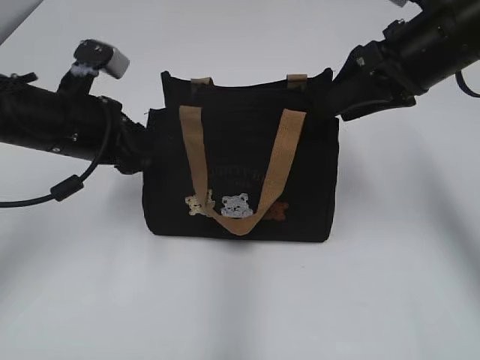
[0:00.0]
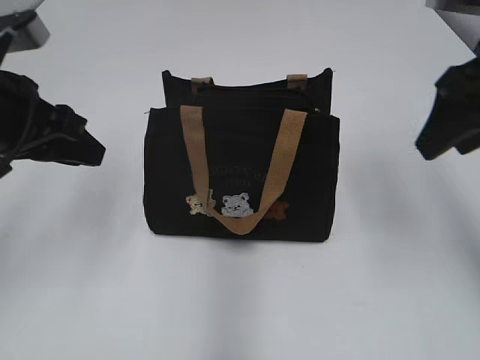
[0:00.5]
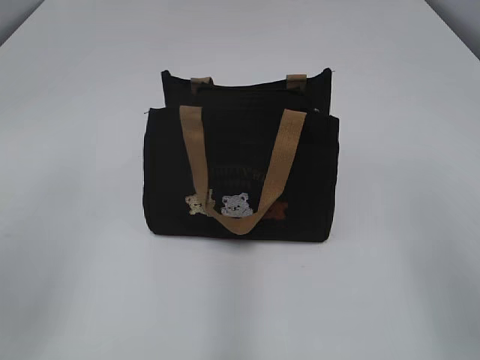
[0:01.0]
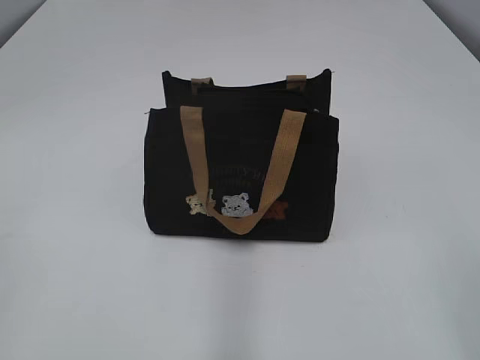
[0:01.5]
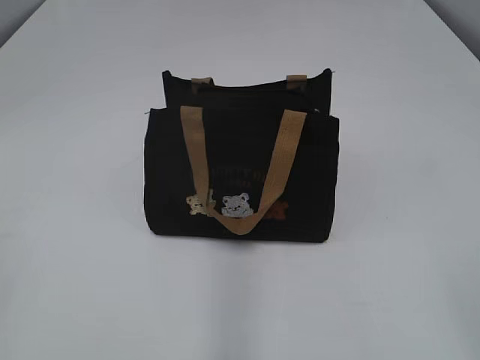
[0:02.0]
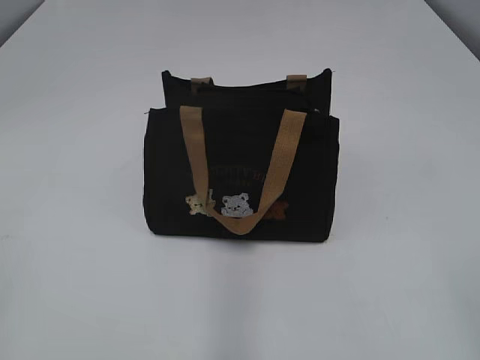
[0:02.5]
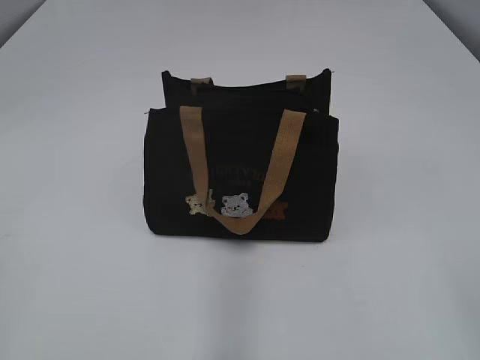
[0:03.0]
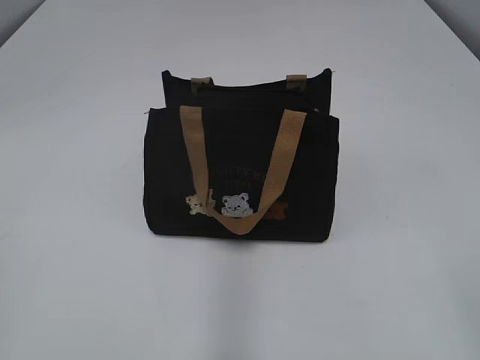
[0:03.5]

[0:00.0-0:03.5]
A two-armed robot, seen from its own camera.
0:00.0 to 0:02.0: The right gripper travels backward by some 35 cm, and opens. Meanwhile the left gripper travels backward and to the left by roughly 35 cm, and opens up.

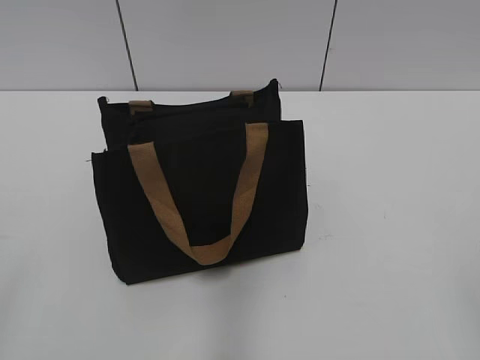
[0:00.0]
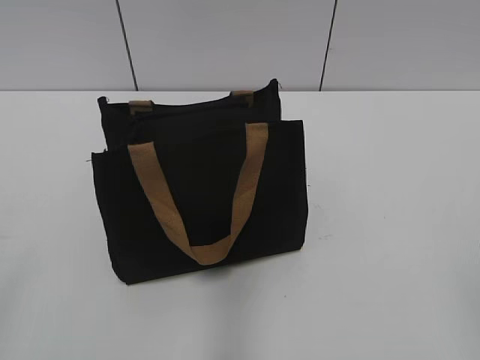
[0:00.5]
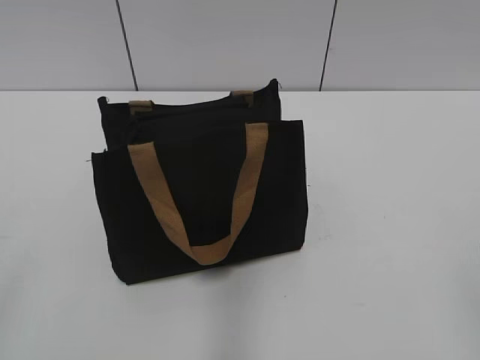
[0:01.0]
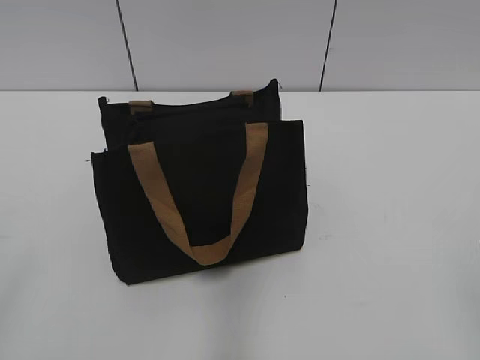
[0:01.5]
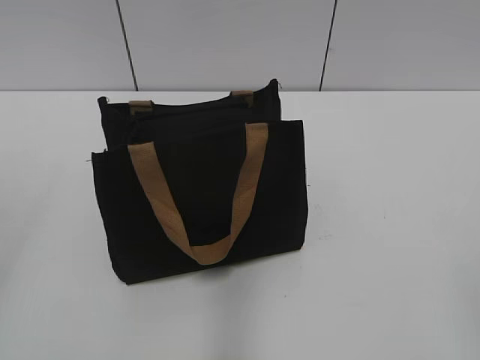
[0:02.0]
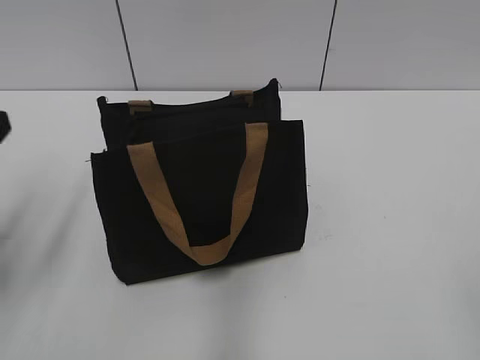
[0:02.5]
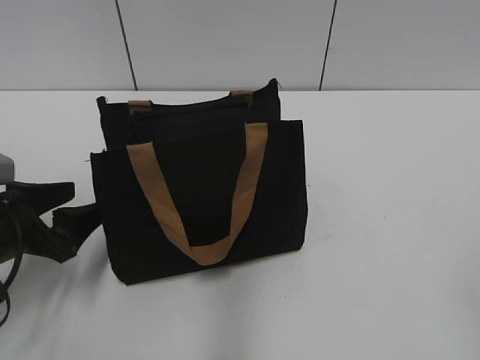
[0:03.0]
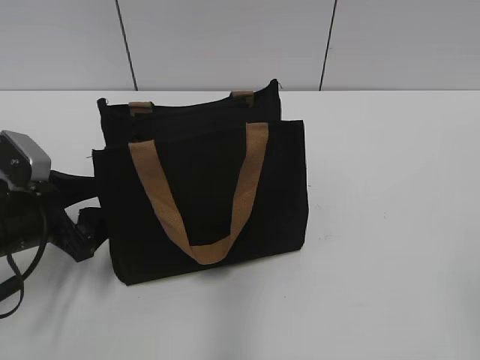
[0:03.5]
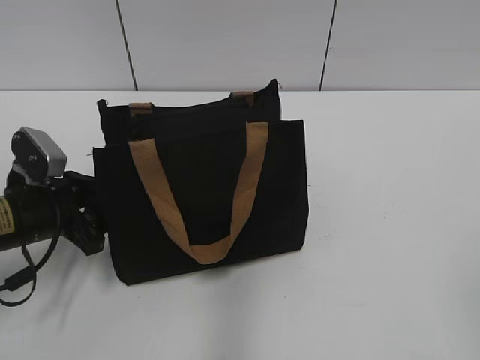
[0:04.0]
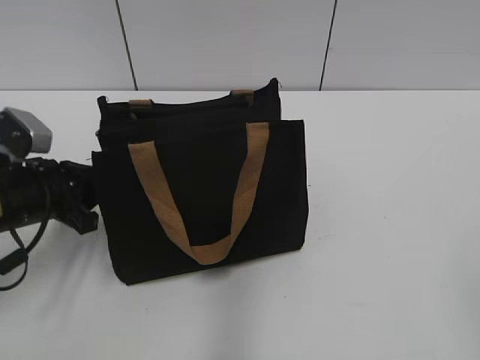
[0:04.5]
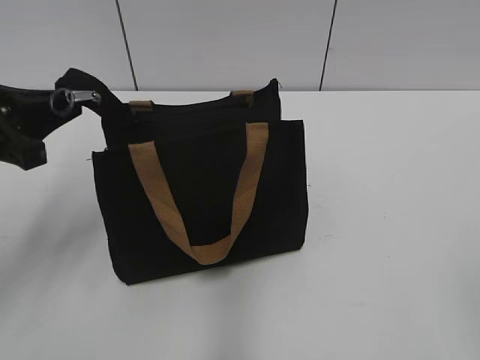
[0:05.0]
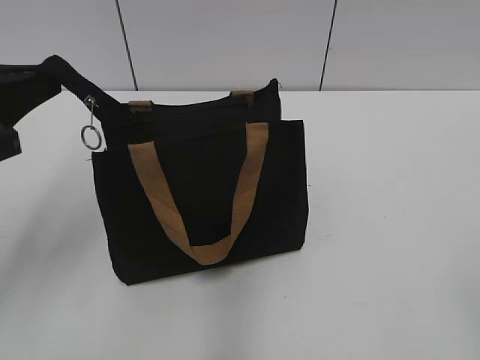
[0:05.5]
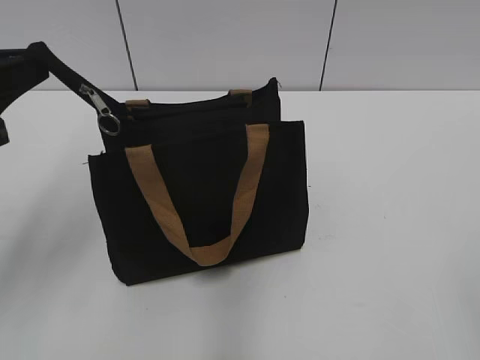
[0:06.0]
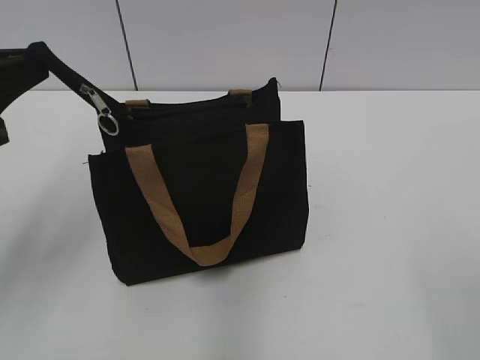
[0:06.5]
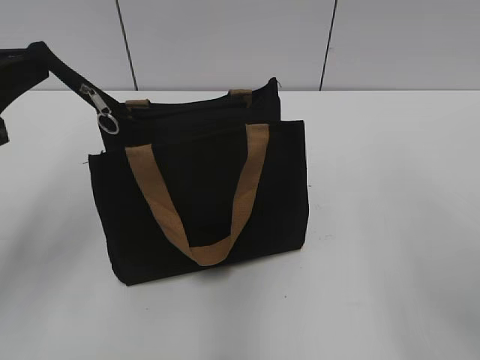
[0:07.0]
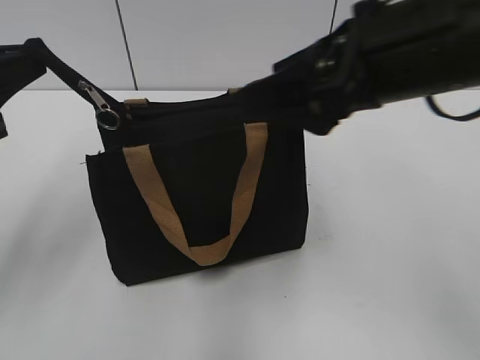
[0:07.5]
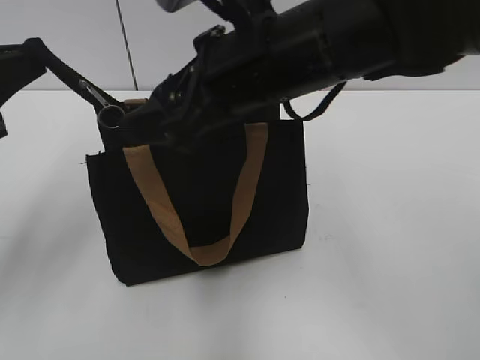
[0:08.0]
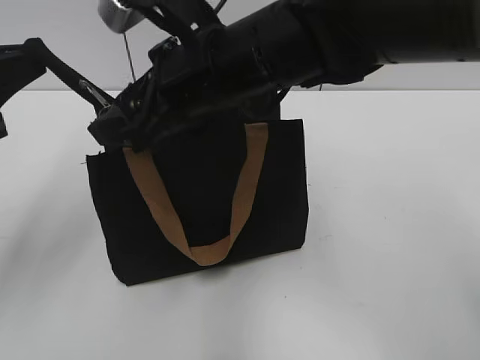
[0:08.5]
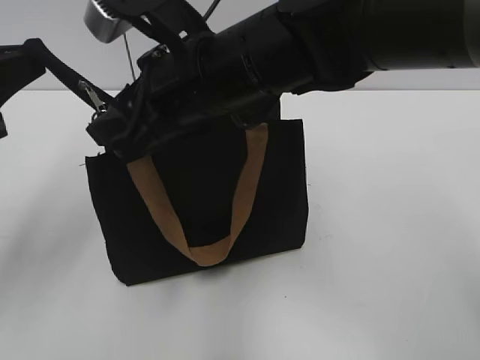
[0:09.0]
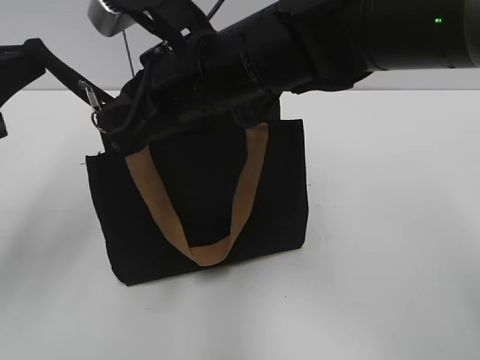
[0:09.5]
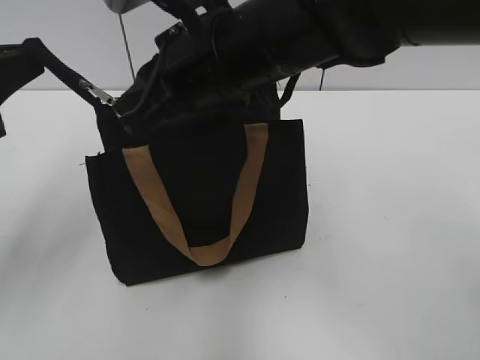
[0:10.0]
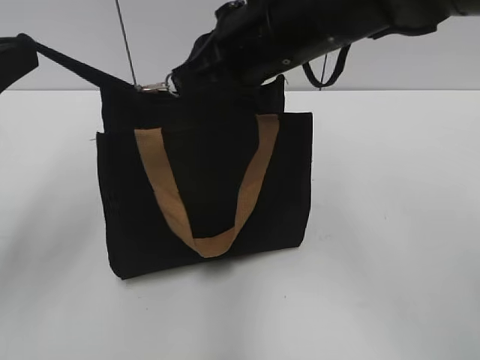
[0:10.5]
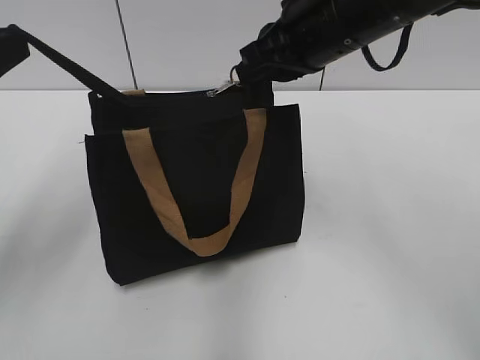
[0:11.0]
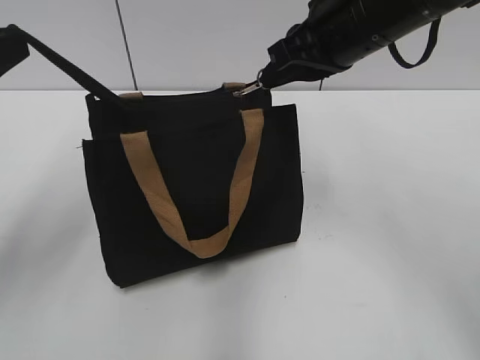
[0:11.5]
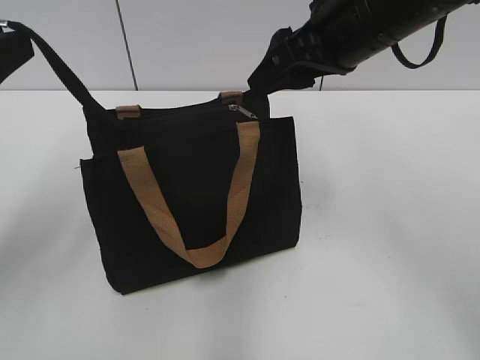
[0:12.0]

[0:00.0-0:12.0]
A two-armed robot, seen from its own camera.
Step, 0:00.0 to 0:11.5: Zip up the bag with your right hand.
0:02.0 to 0:04.0: The left gripper goes about 35 cm downward and forward.
0:04.0 to 0:06.0: The left gripper travels upward by some 15 cm, and closes up.
0:06.0 to 0:08.0: The right gripper travels forward and to the left by approximately 35 cm.
0:08.0 to 0:10.0: The right gripper goes some 5 cm to the left, and closes up.
0:10.0 to 0:12.0: The right gripper shifts some 10 cm to the right, and opens its fingers.

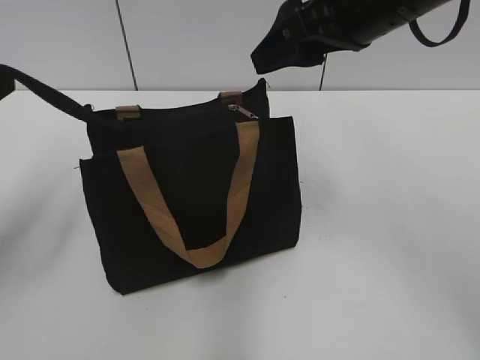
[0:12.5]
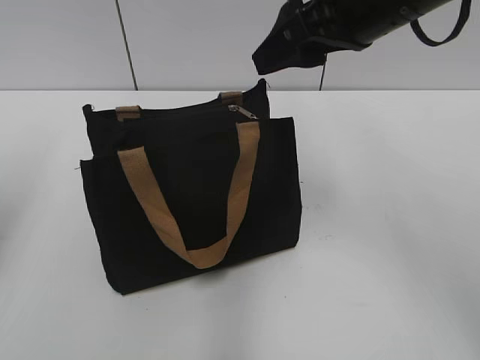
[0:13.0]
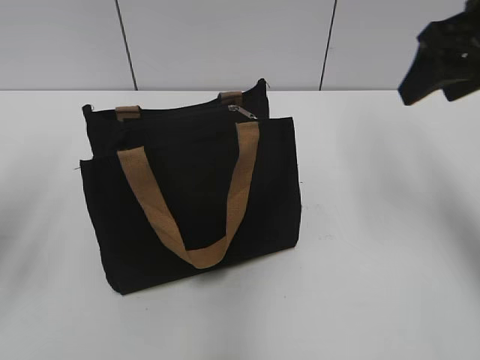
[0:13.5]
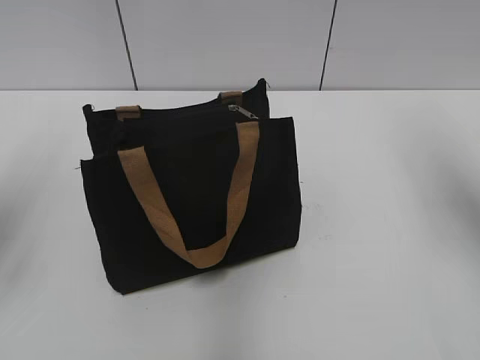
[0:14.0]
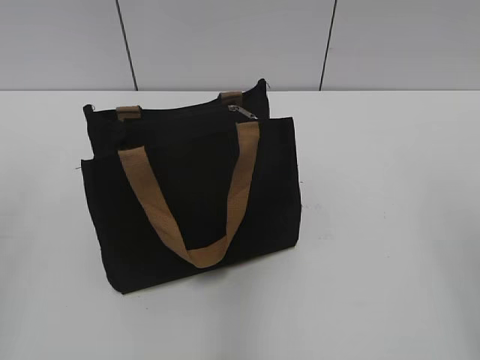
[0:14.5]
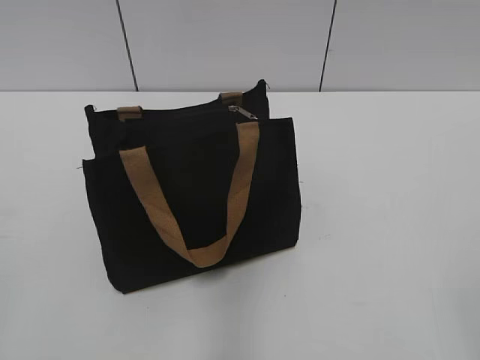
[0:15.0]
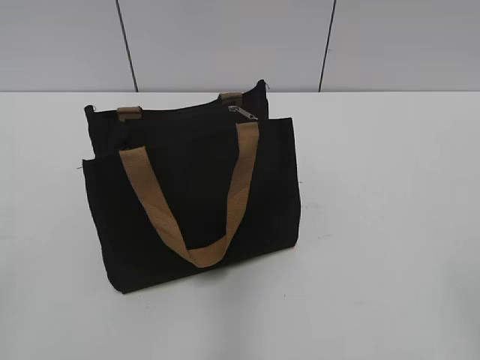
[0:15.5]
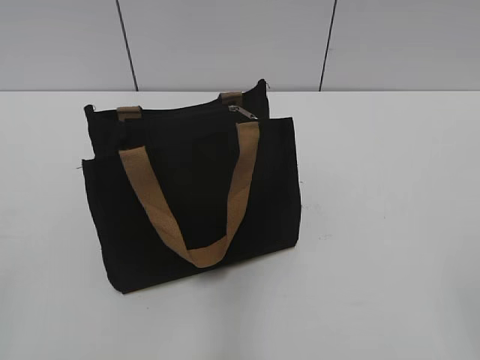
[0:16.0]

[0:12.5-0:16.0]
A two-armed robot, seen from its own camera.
0:12.5 to 0:14.5: The right gripper travels backward and to the right by roughly 25 cm, while the left gripper travels backward by roughly 5 cm.

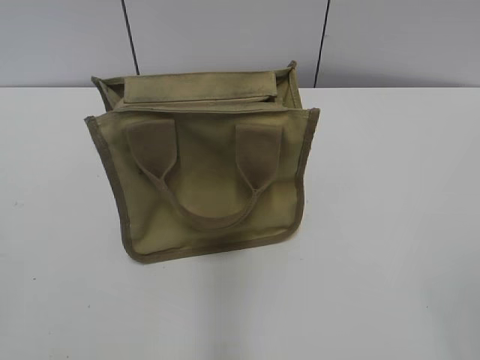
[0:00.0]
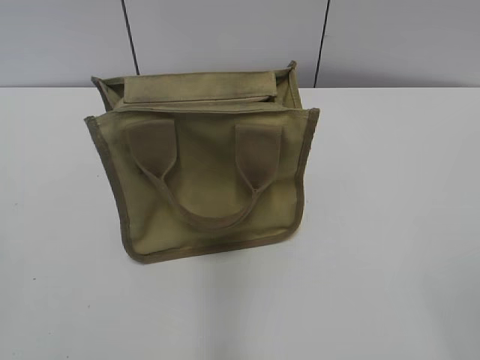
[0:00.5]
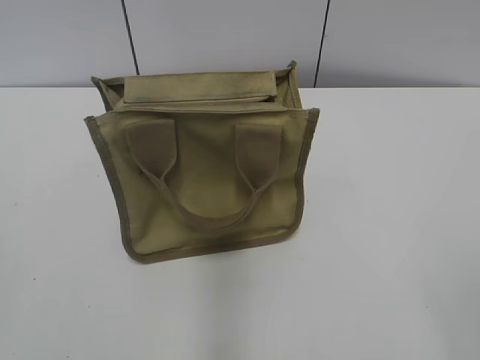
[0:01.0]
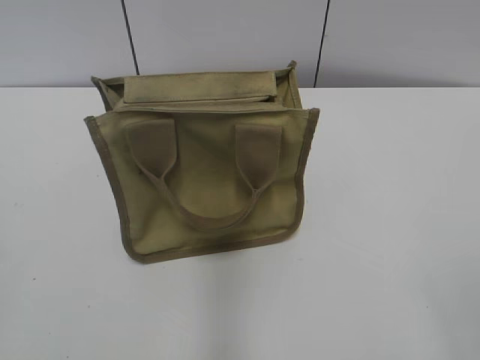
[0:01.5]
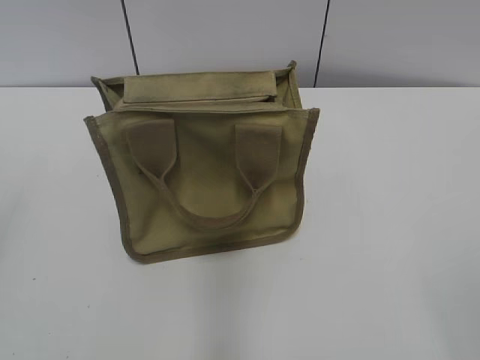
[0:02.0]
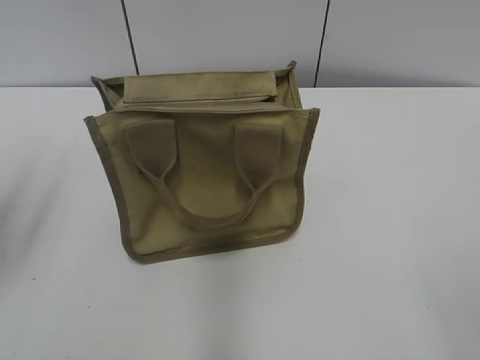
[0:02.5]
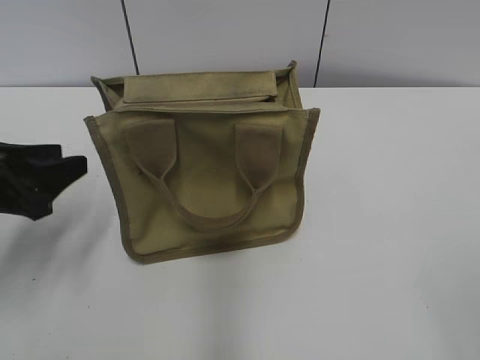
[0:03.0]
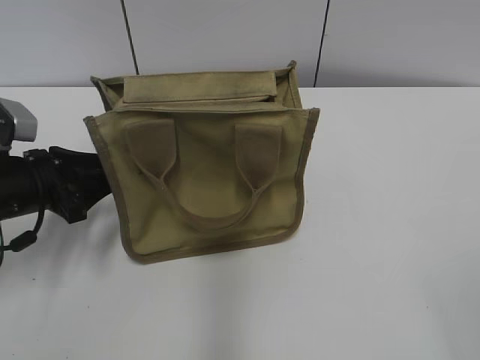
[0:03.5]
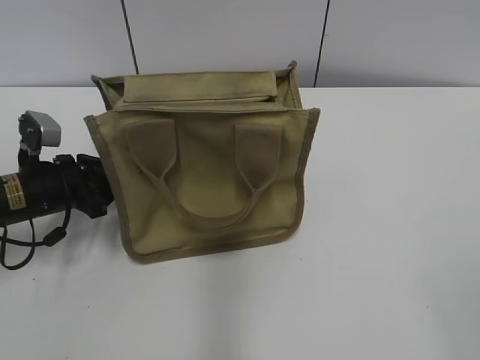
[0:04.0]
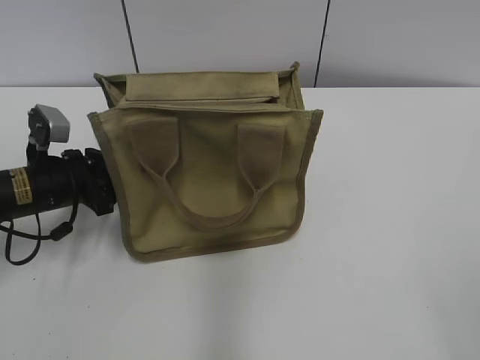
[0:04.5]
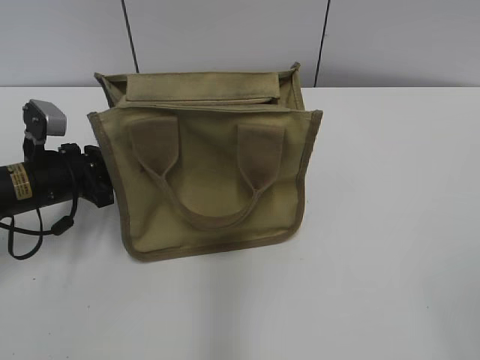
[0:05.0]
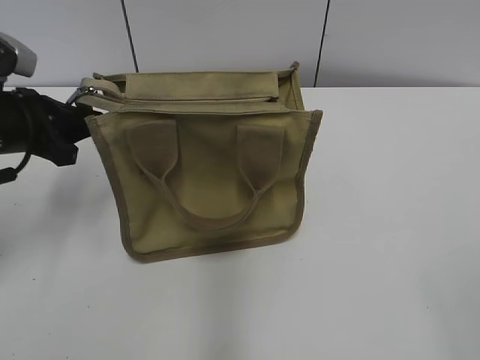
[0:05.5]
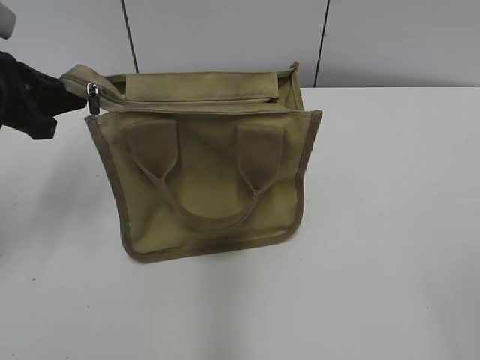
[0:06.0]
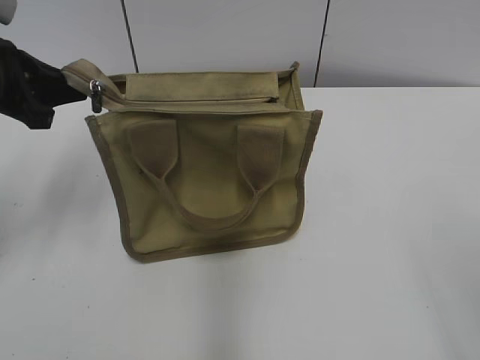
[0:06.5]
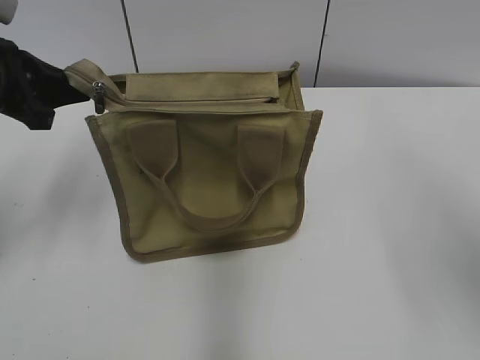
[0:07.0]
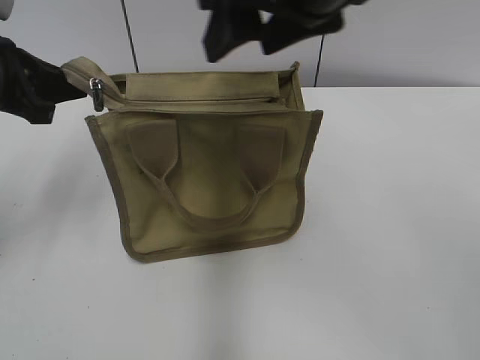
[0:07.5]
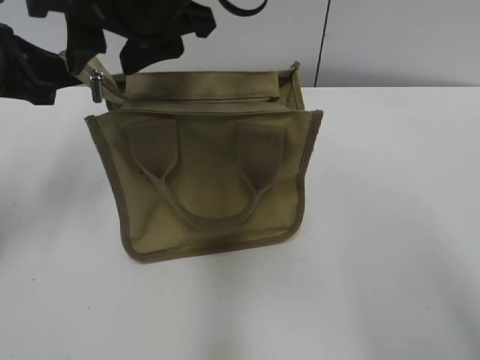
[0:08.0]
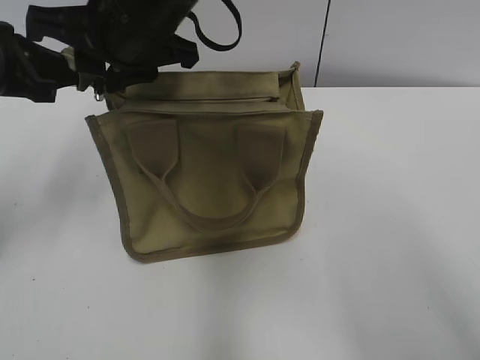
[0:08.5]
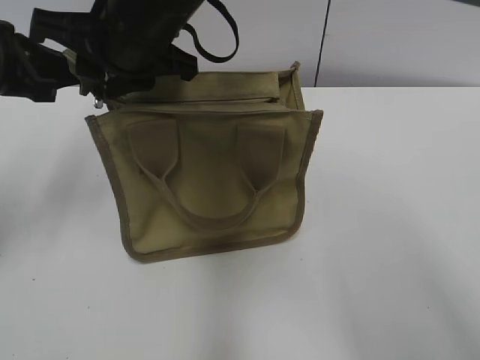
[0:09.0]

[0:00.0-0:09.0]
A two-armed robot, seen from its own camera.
0:02.0 to 0:04.5: The left gripper is displaced forward and downward by some 35 cm.
0:04.5 to 0:07.0: The right gripper goes roughly 20 cm forward and upward. The left gripper shifts about 15 cm upward, and closes.
0:07.0 to 0:09.0: The right gripper goes about 40 cm to the left and forward, and closes its fingers.
